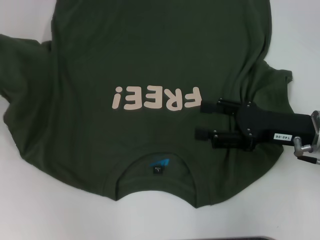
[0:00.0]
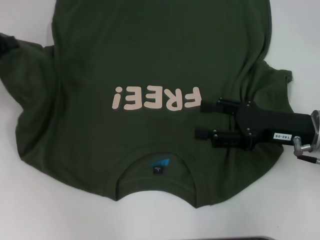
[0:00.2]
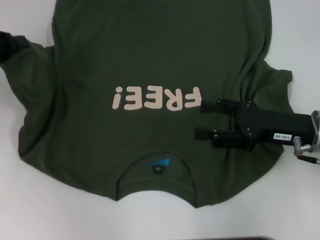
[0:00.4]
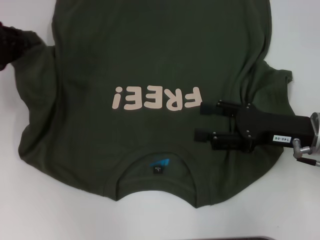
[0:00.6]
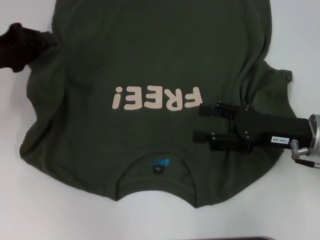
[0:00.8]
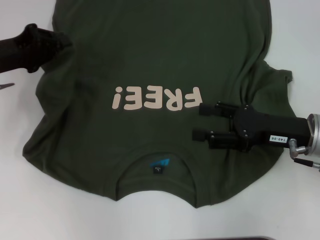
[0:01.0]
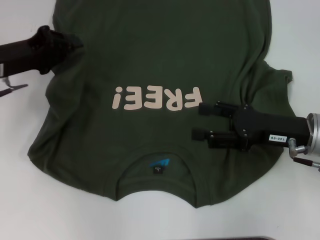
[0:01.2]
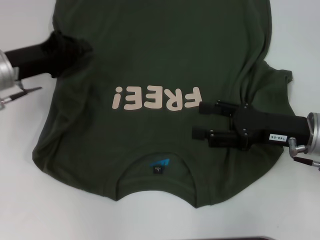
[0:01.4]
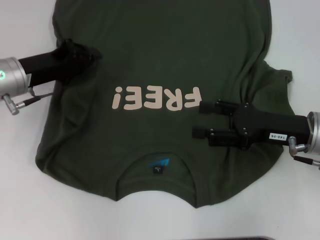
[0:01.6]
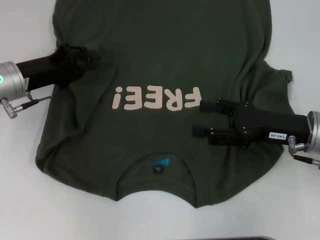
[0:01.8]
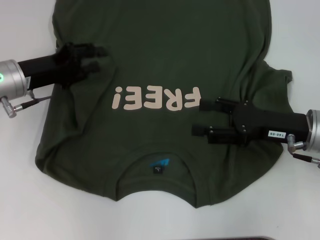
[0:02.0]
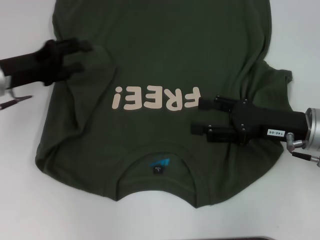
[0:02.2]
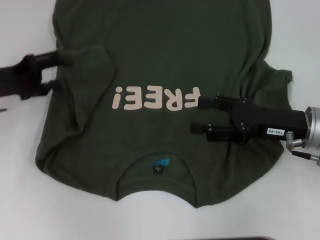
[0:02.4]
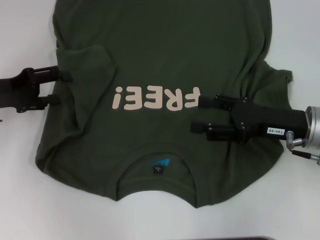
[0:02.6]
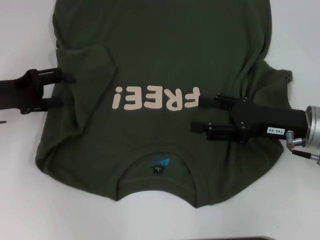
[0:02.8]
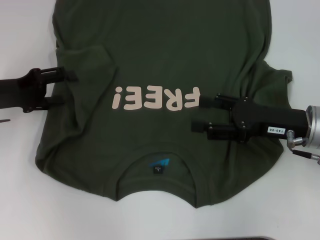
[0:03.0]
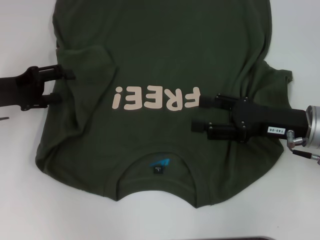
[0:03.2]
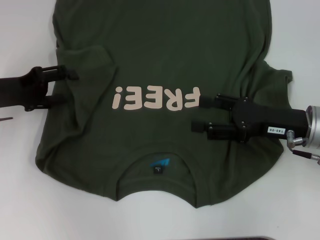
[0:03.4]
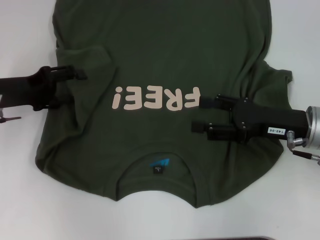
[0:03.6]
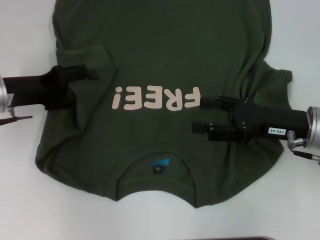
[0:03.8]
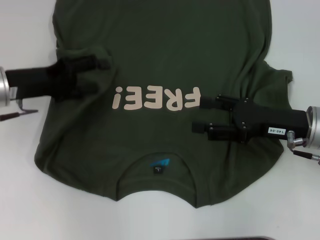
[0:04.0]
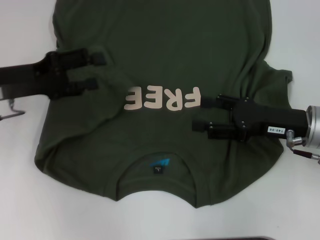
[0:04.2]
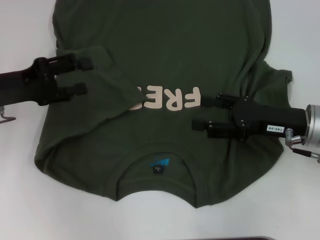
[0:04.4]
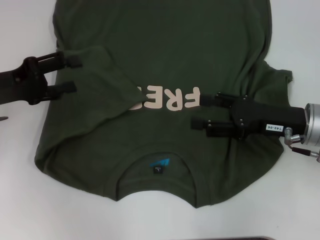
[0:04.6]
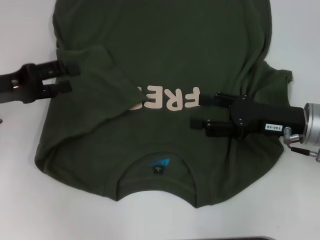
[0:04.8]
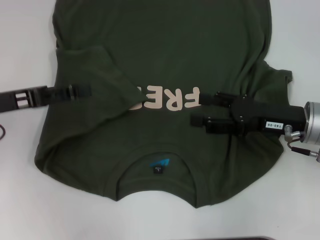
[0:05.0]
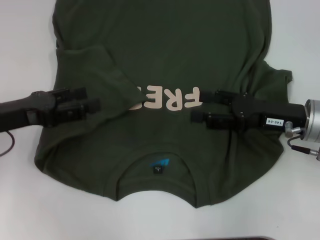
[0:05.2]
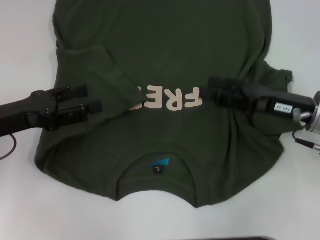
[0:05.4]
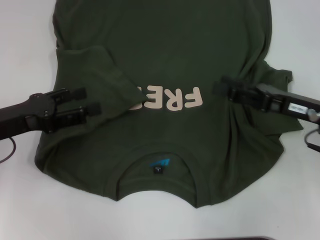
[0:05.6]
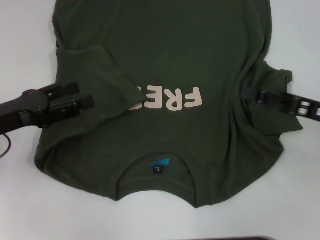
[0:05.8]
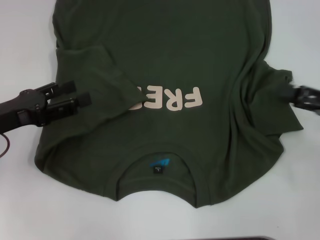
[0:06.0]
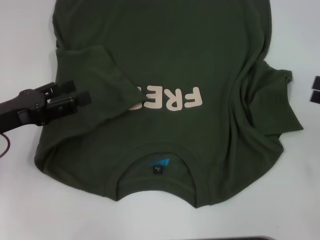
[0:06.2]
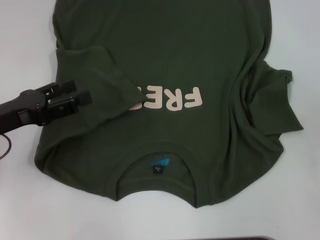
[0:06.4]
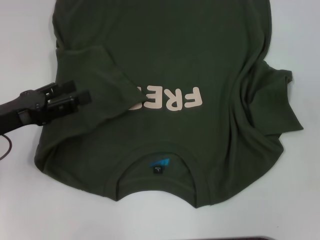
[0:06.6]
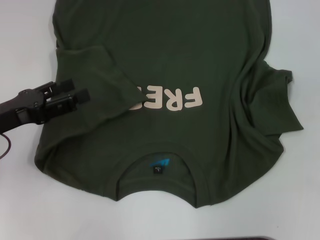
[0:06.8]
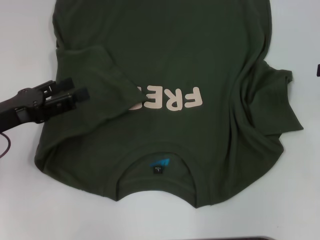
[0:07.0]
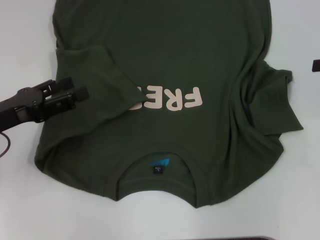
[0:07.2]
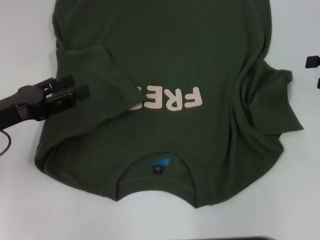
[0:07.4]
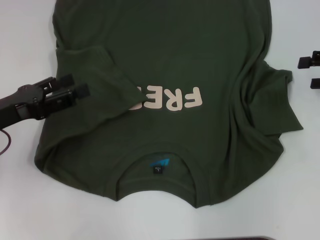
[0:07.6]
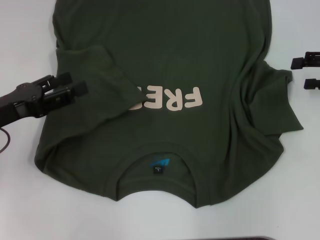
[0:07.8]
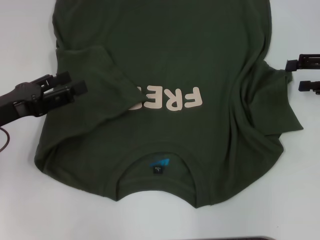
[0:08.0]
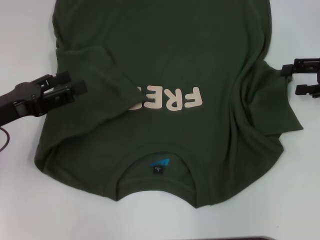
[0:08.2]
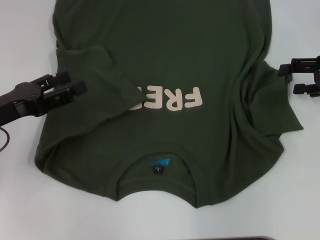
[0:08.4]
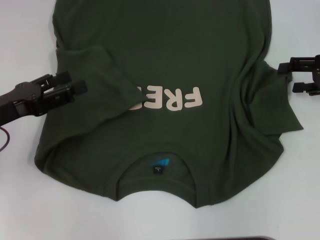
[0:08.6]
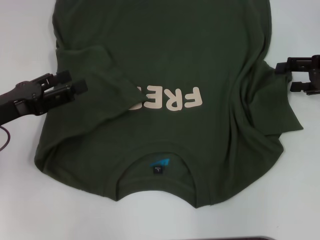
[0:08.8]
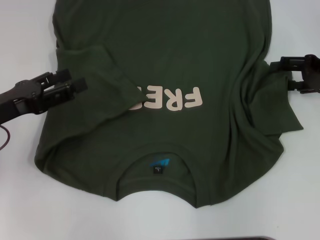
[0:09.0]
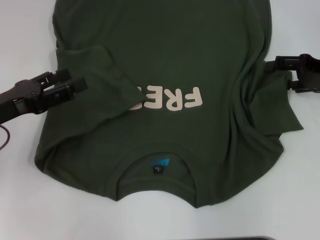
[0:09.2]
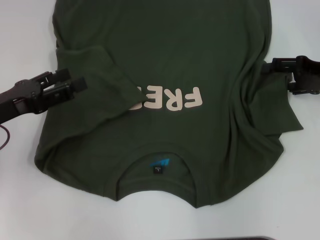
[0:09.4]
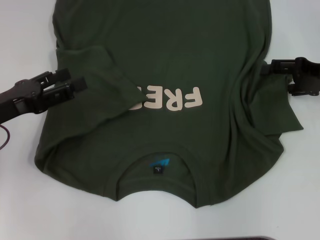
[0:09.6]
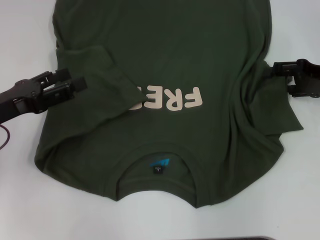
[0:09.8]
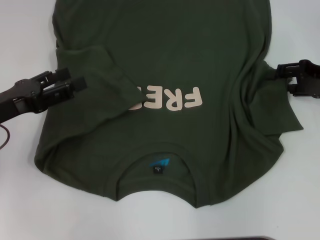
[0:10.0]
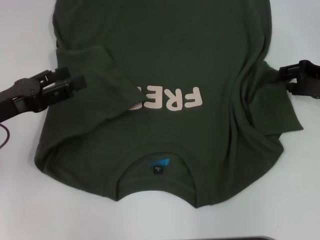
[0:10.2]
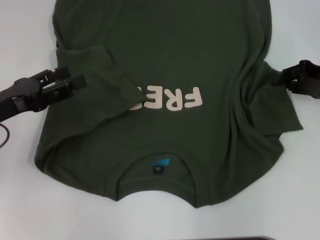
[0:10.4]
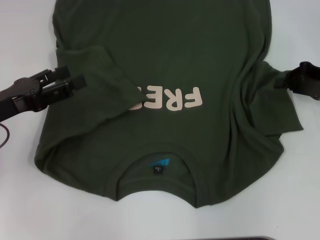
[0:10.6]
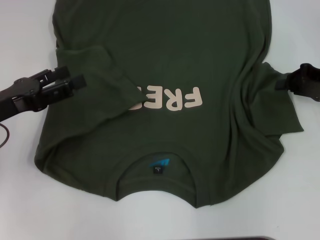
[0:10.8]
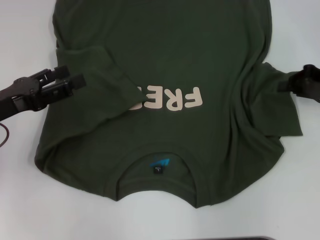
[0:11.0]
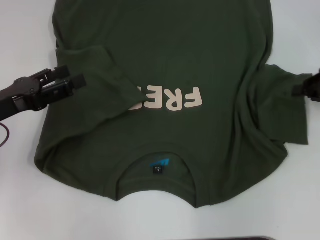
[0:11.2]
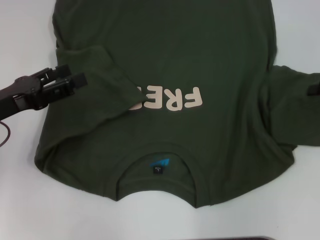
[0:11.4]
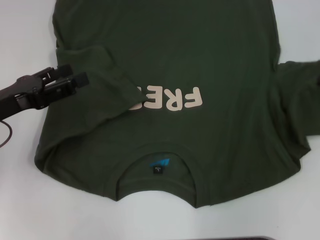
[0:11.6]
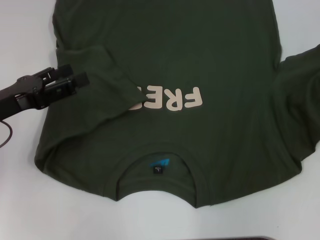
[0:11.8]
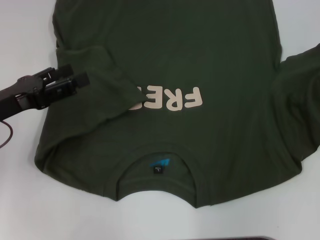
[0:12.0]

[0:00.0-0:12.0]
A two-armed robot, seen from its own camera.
Step, 0:00.0 to 0:04.2: Fold the bottom left sleeve with your left hand.
0:00.0 to 0:01.6: The left gripper heads to the right and downward, covering some 15 cm.
0:01.6 to 0:03.0: The left gripper goes some 5 cm to the left, and opens.
0:04.4 to 0:06.0: The right gripper goes some 10 cm to the right, while the left gripper heads backward, covering approximately 5 cm.
0:06.0 to 0:07.6: The right gripper moves forward, about 10 cm.
0:07.6 to 0:09.0: The right gripper shifts by roughly 5 cm.
0:09.0 to 0:10.4: The right gripper closes up.
0:10.4 to 0:12.0: The right gripper moves to the right, about 5 cm, and closes.

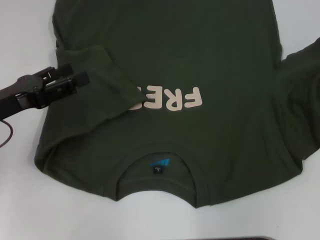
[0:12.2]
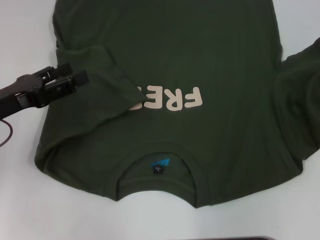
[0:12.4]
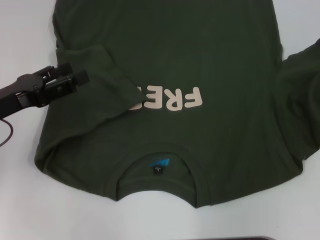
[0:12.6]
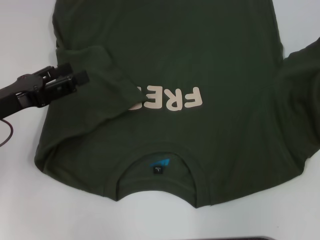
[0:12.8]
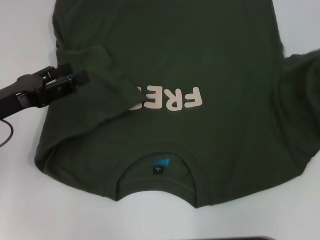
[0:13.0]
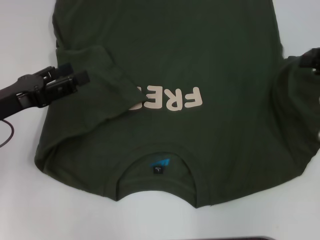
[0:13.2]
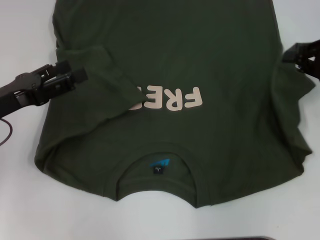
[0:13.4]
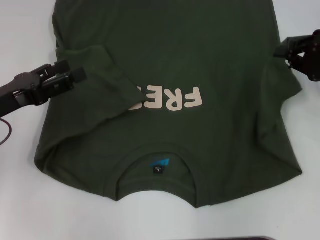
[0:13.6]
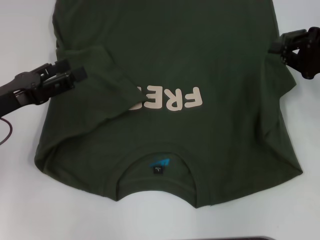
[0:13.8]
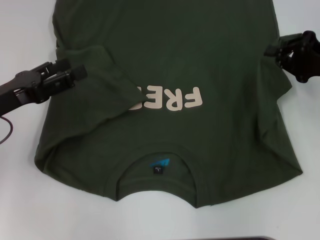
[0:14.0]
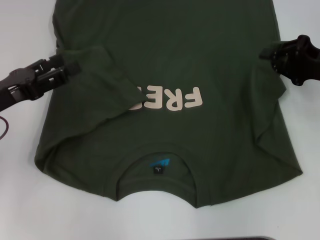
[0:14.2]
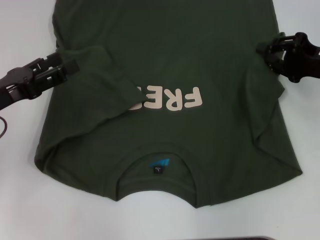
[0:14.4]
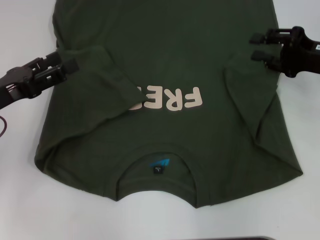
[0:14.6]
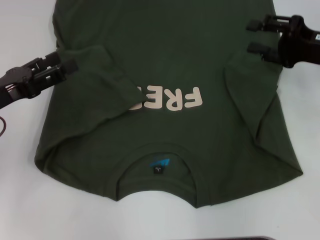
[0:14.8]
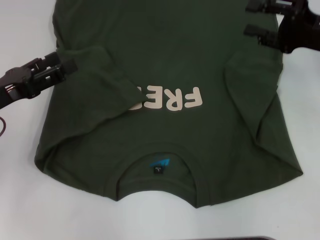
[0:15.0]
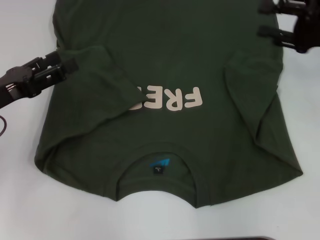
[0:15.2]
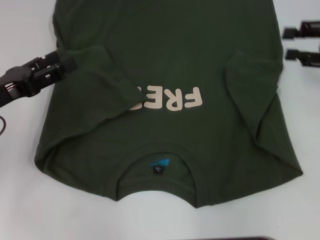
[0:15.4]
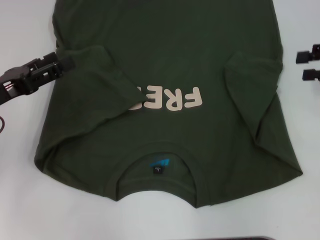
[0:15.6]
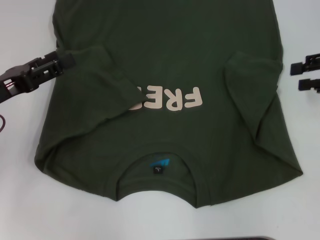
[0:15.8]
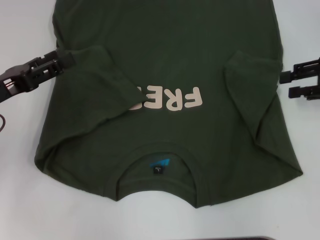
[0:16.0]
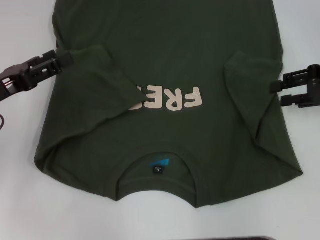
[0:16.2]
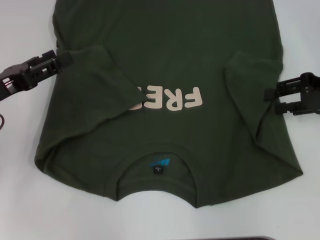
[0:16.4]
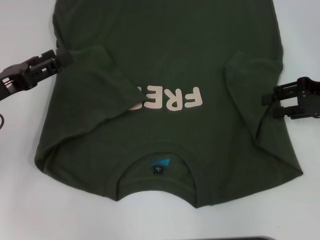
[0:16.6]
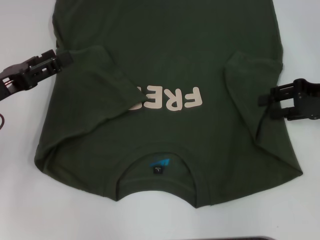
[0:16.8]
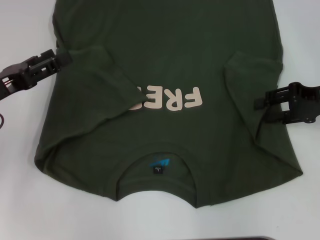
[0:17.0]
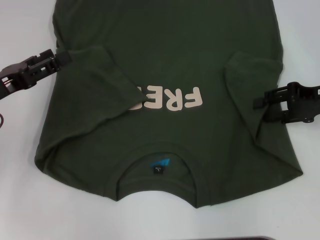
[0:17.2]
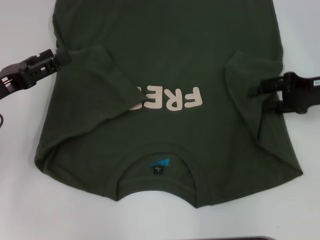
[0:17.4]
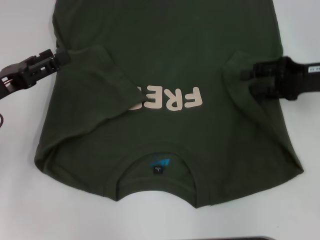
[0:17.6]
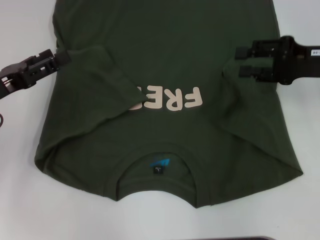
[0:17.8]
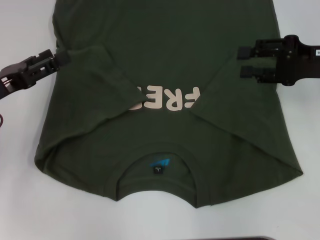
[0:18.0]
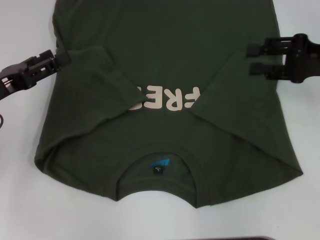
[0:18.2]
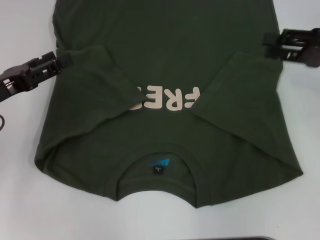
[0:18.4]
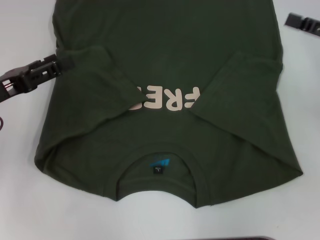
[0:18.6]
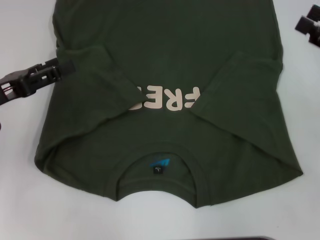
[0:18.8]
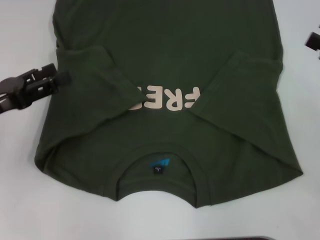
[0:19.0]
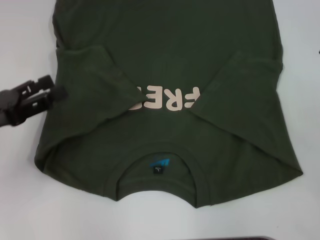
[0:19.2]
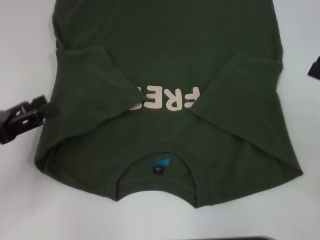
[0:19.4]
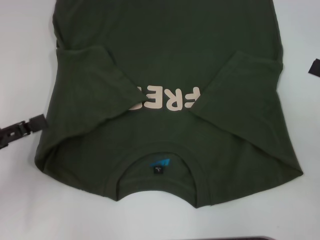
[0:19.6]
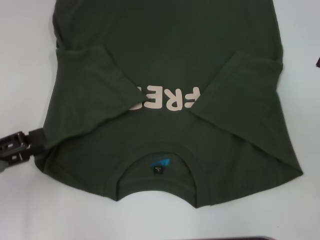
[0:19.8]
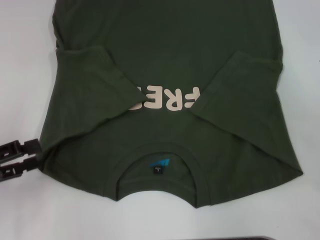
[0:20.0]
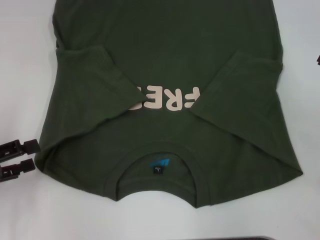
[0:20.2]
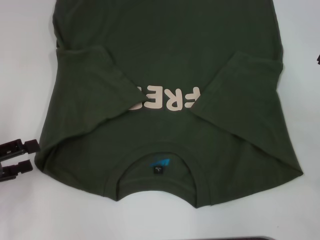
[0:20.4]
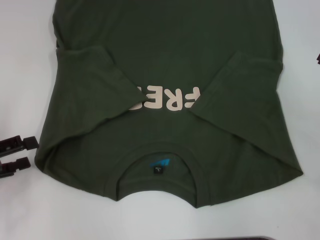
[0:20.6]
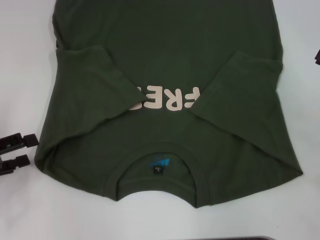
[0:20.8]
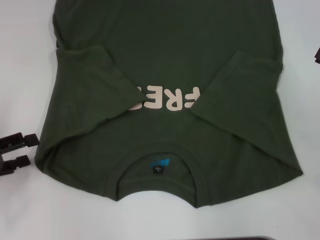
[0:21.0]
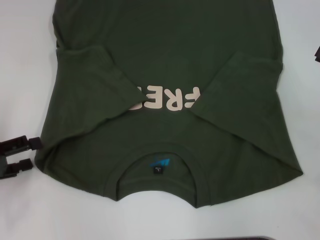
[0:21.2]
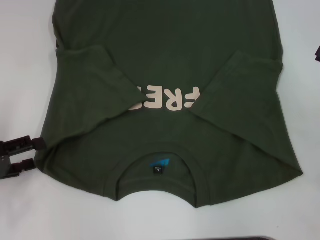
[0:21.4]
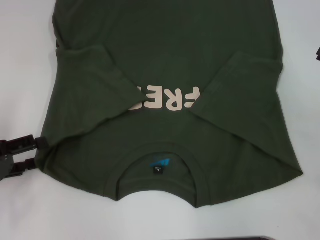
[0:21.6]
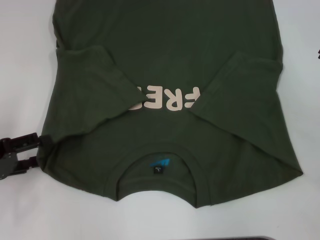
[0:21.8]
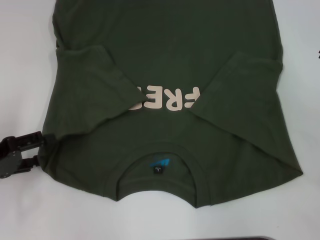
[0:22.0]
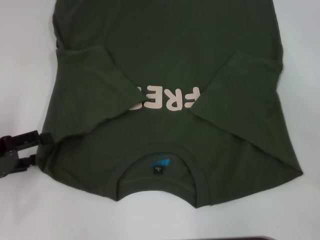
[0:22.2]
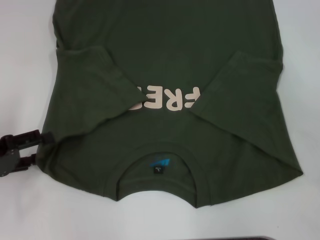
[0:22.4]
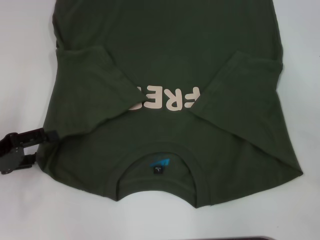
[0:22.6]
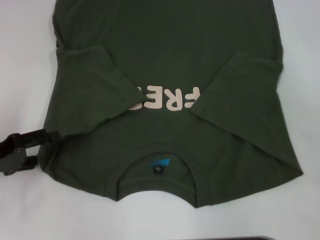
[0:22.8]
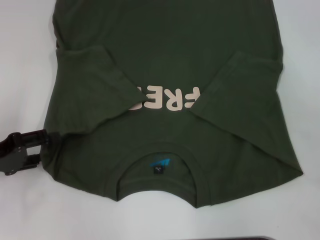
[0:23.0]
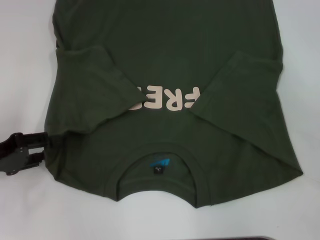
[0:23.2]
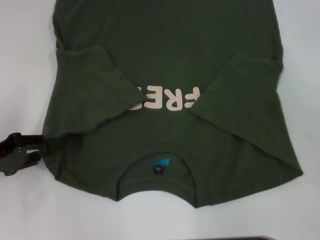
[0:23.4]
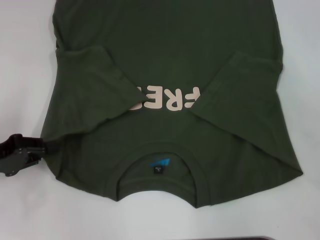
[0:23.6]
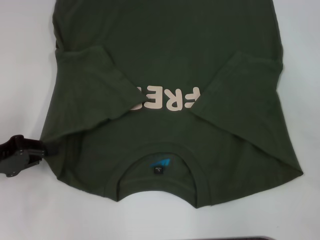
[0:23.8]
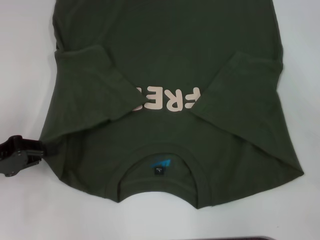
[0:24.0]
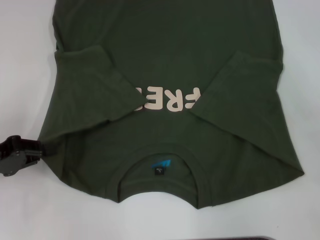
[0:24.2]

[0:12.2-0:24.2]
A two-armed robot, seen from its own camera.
Step, 0:12.2 to 0:17.8: Fold the bottom right sleeve with your right hand.
0:12.2 to 0:13.8: The right gripper heads to the left, covering approximately 10 cm.
0:13.8 to 0:15.2: The right gripper opens.
0:18.2 to 0:19.8: The right gripper is displaced backward and to the right by about 10 cm. The left gripper goes approximately 10 cm backward.
0:21.2 to 0:22.6: The grippers stay close to where they were, moving slightly.
0:22.6 to 0:24.2: The left gripper closes.
